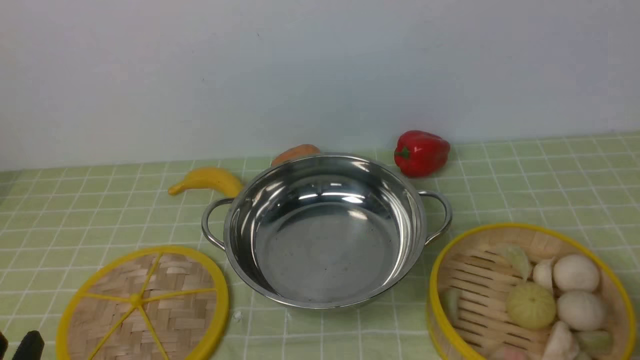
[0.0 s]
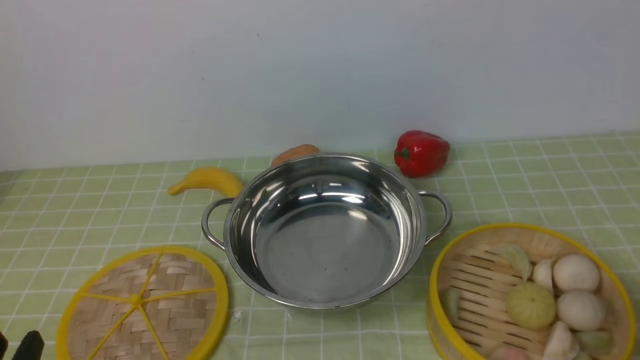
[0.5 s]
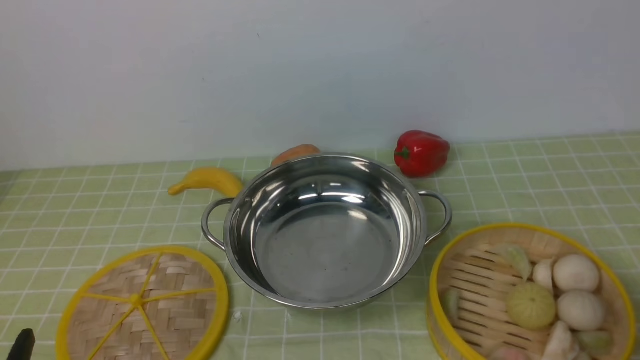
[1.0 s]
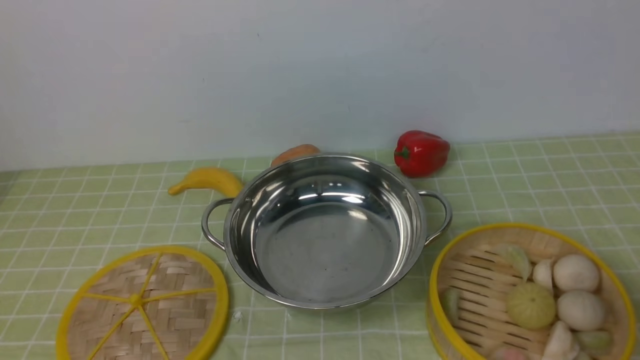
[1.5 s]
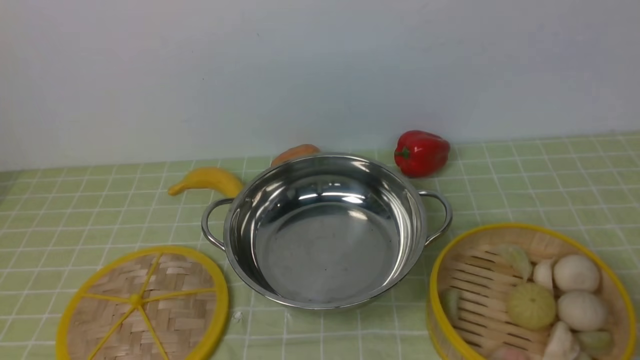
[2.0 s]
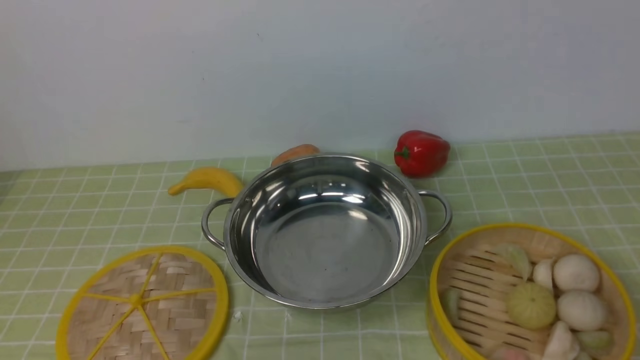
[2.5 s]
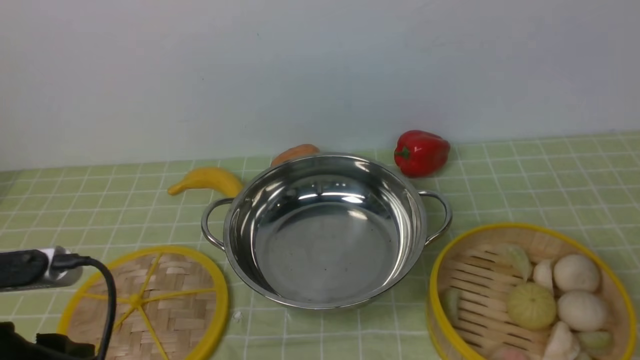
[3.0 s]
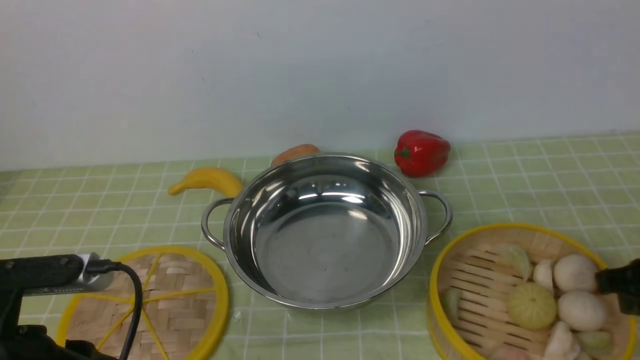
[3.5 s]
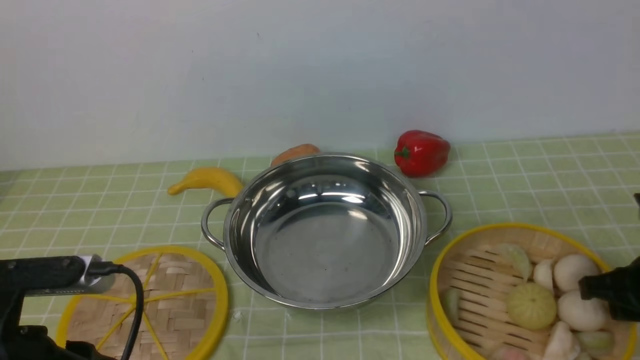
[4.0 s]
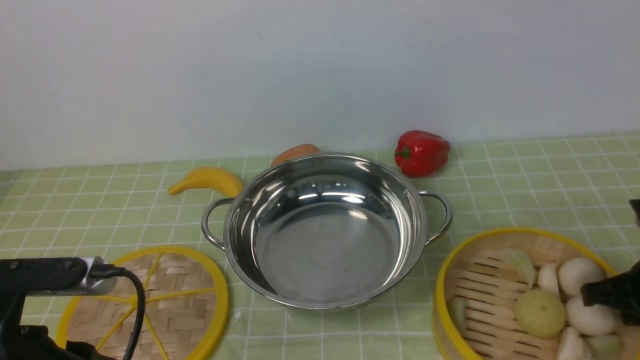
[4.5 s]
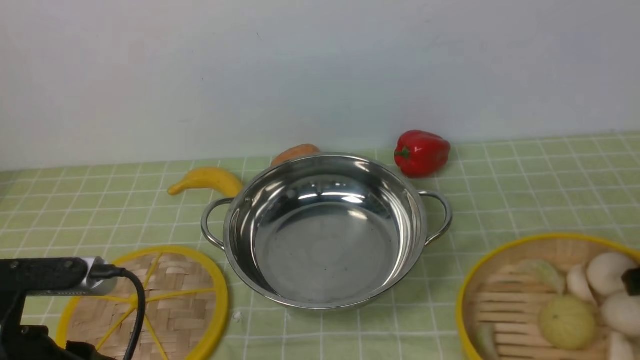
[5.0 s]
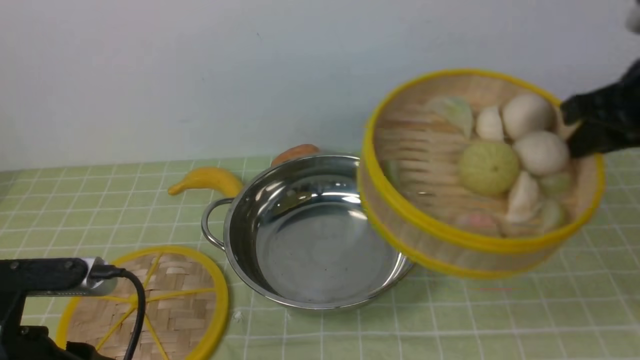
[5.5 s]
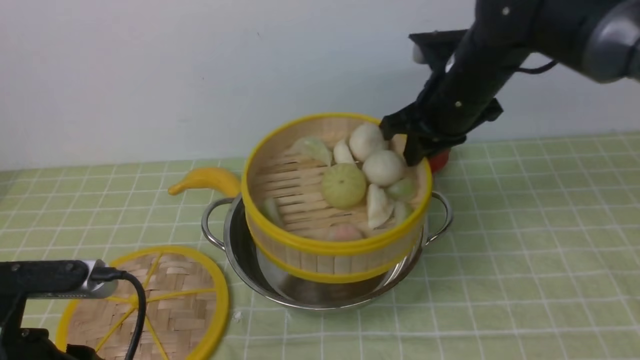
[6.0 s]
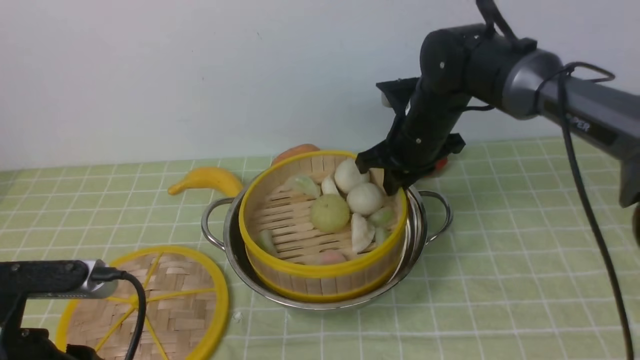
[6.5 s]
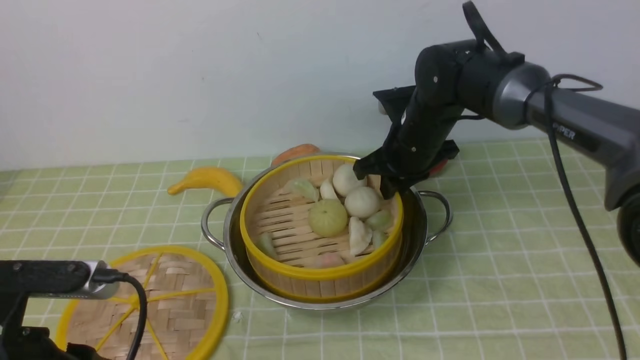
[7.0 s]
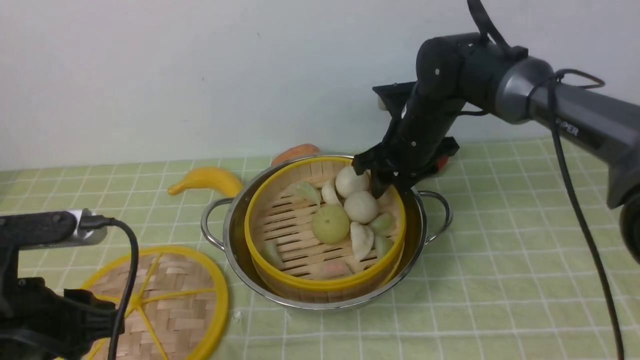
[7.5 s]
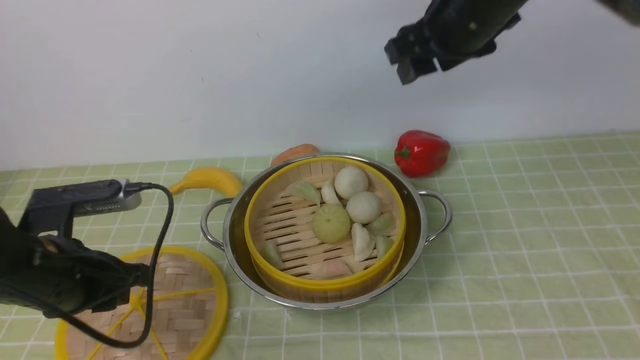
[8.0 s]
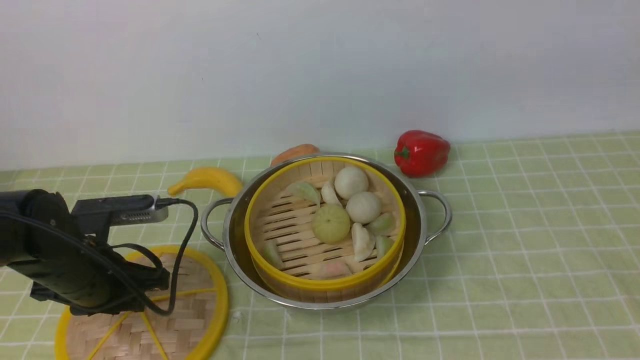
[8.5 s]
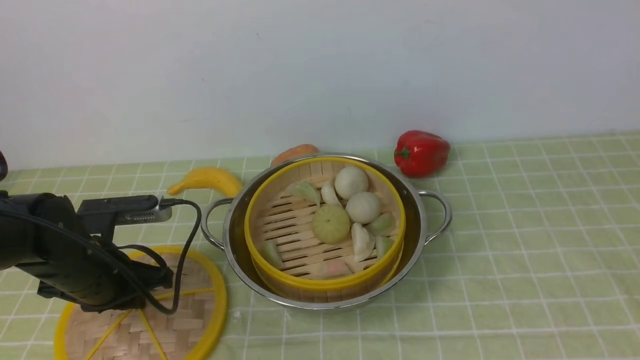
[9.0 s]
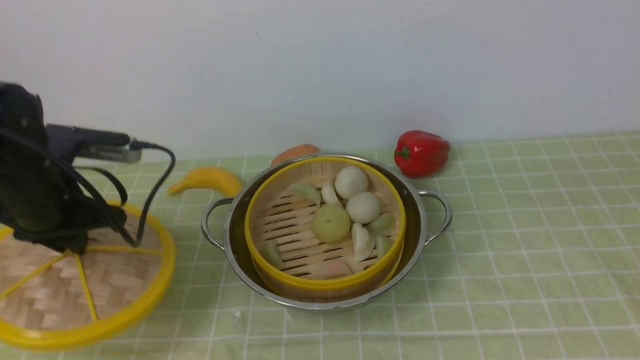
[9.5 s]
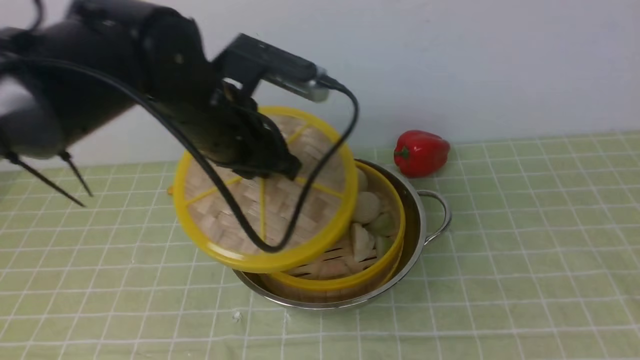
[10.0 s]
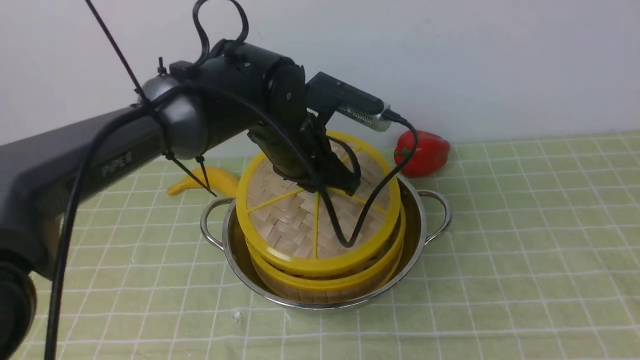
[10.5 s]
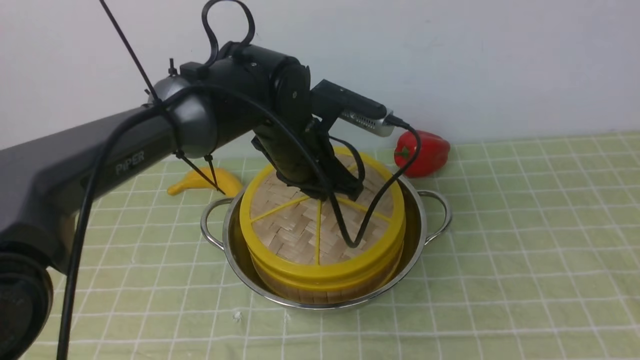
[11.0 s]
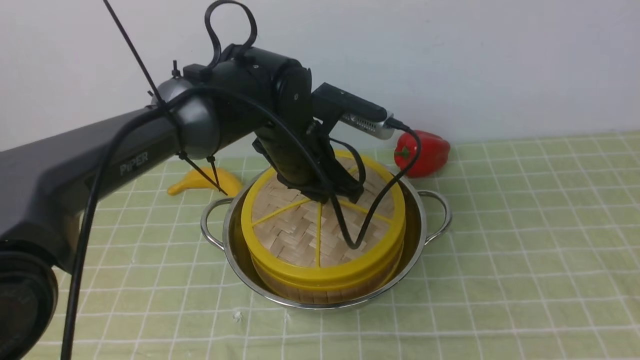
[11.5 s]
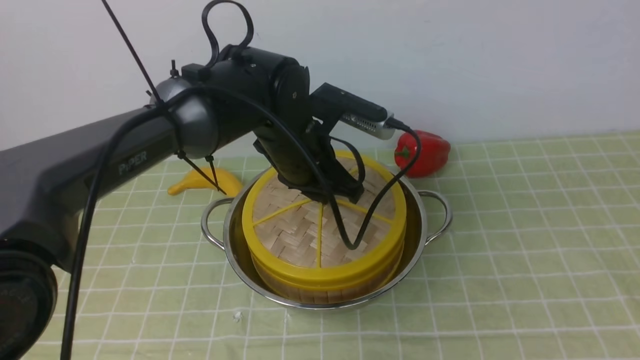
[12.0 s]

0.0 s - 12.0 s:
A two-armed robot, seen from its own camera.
Task of the whole recording: place the steamer in the pot on the green tablecloth, and put the lid on the steamer.
Step, 0.0 s - 5.0 s: use the right arm to lift the steamer closest to it.
Step, 5.5 s - 8.0 s: use the right arm to put the steamer into the iron steamer pot in the middle.
Step, 8.5 s - 9.5 s: use the left arm to lift the lid of the steamer.
2.0 s - 4.0 s: The right gripper goes about 25 cm forward and downward, while the left gripper moves forward and downward, approximately 15 cm.
4.0 s - 6.0 s: The right gripper travels to the left, forward and upward by about 25 cm.
6.0 s - 8.0 s: The left gripper goes some 10 cm forward; the right gripper heads upward, covering some 10 cm, and opens up.
8.0 s - 10.0 s: The left gripper moves to the right, forward and upward, some 20 cm, and closes its fingers. The right gripper heads backward and to the right, covering some 35 cm.
10.0 s - 12.0 s: The left gripper heads to the right and downward, covering approximately 10 cm.

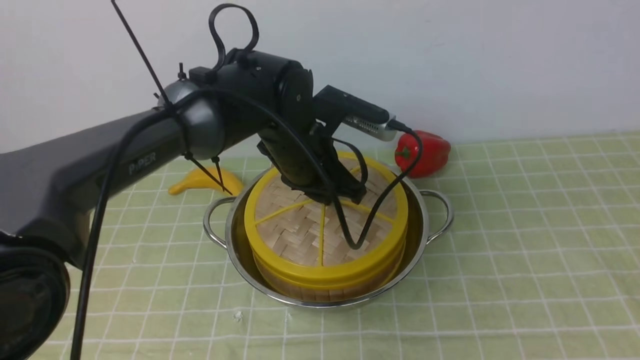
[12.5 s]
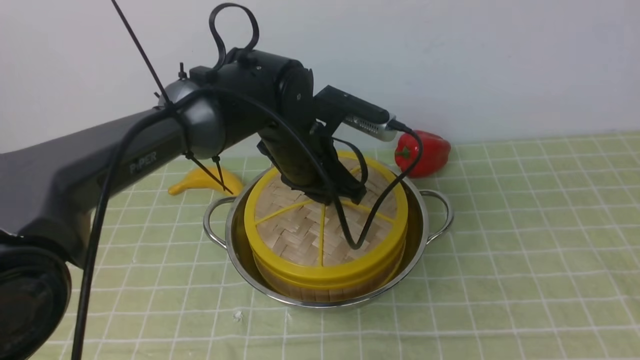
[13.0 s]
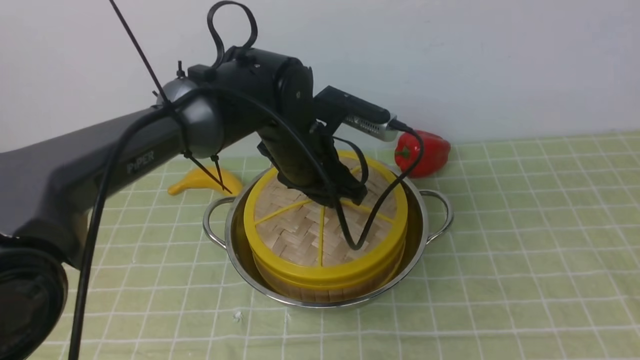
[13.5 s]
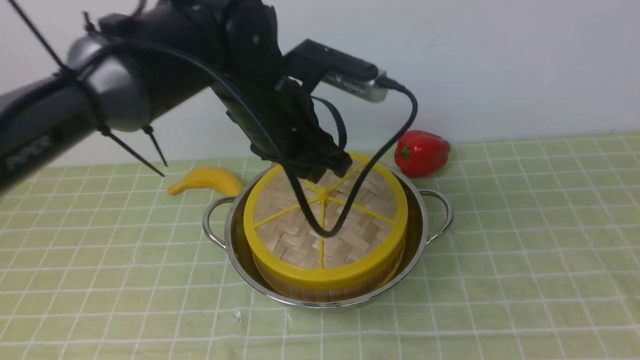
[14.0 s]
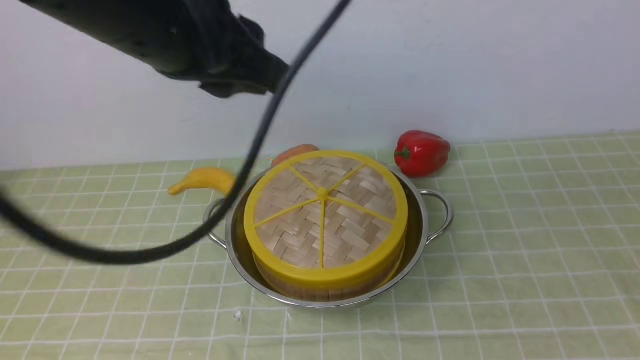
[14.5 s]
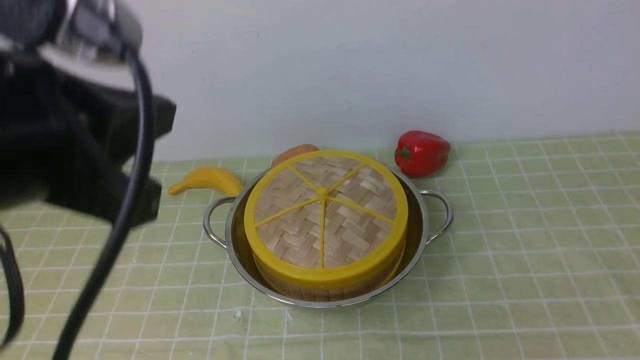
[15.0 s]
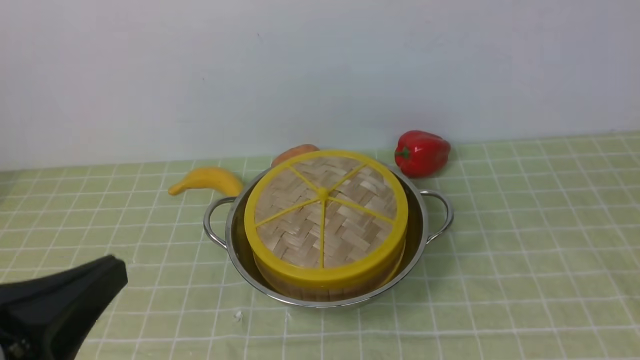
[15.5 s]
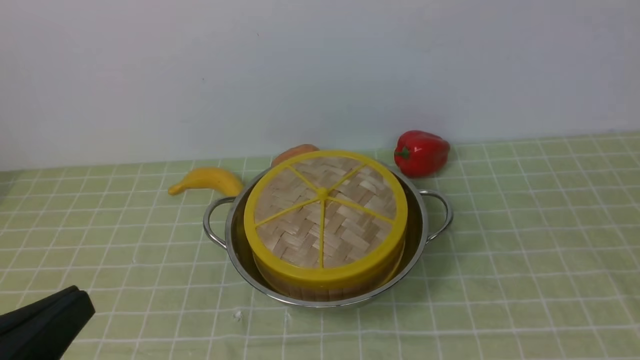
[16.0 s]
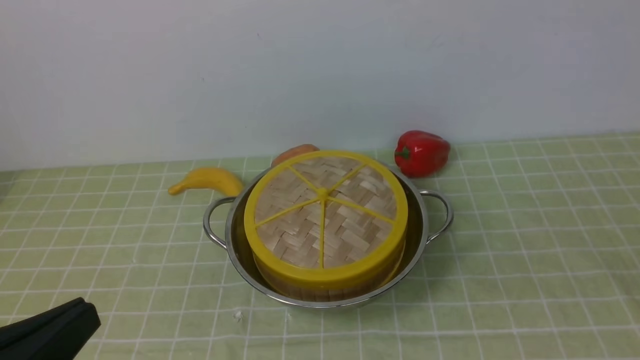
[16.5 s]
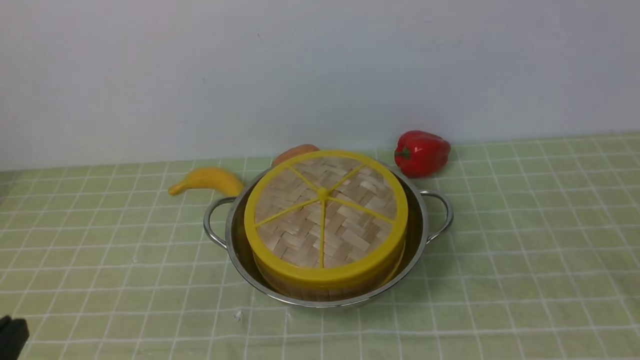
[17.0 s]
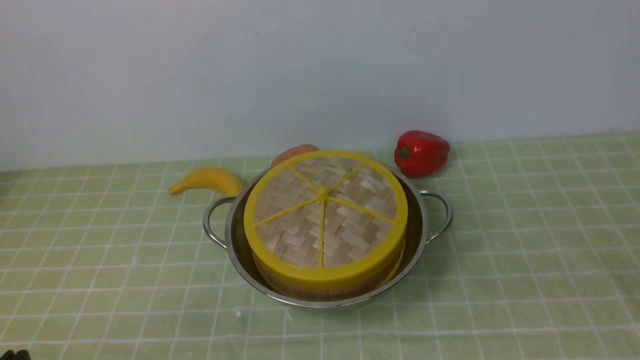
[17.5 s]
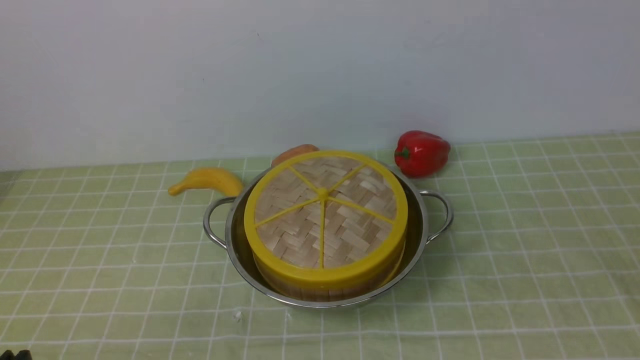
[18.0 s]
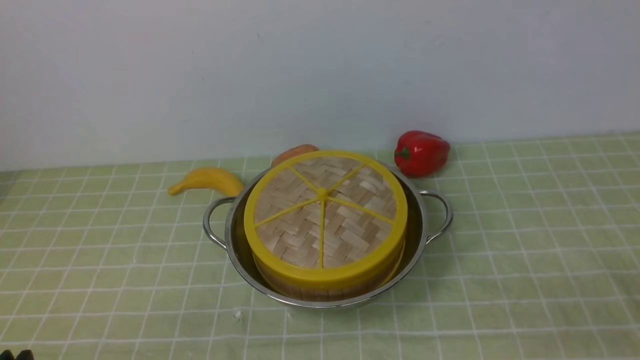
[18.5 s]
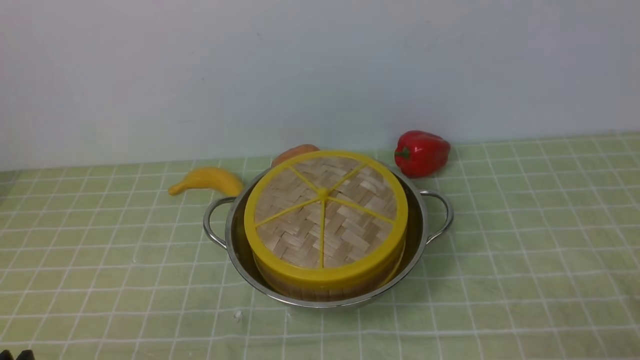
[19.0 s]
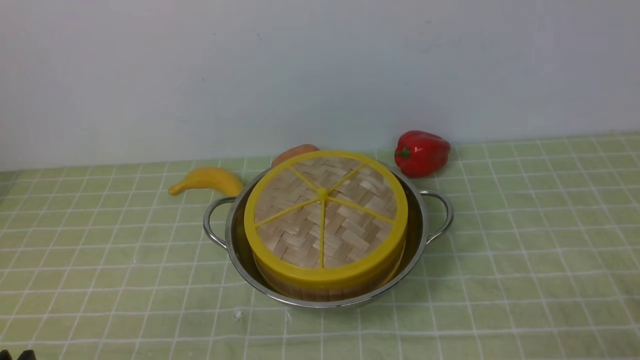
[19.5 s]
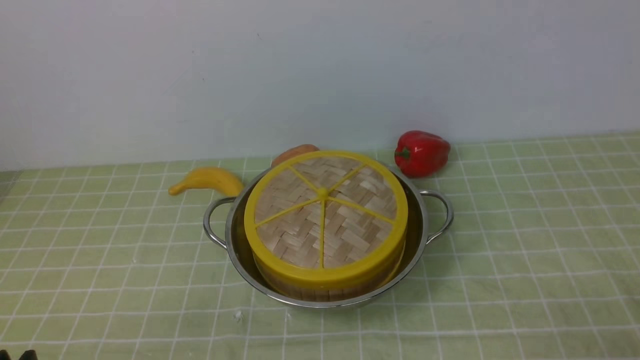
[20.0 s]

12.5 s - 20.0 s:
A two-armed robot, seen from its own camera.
Task of the whole recording: place the steamer in the pot on the green tablecloth, and put the lid on the steamer.
12.5 s - 14.5 s: The left gripper heads upward and backward, covering roughly 25 cm.
14.5 s - 16.5 s: The left gripper travels backward, downward and to the left by about 25 cm, and closes up; the right gripper is displaced downward by approximately 15 cm.
16.5 s - 18.0 s: The left gripper travels downward by about 10 cm.
